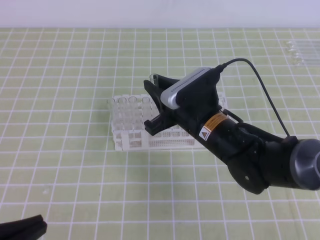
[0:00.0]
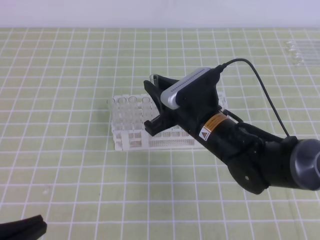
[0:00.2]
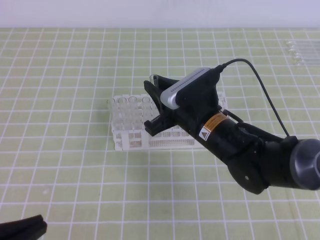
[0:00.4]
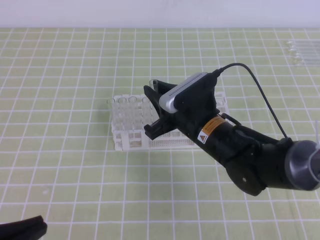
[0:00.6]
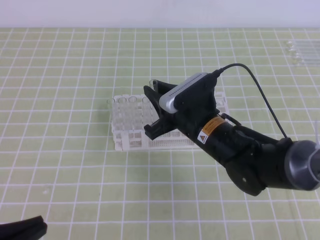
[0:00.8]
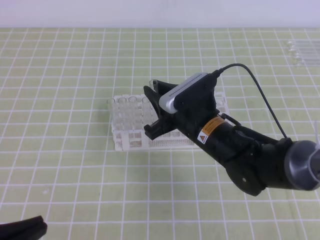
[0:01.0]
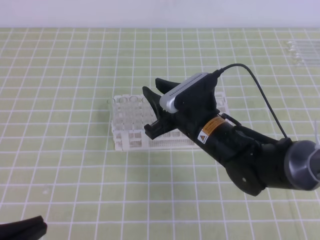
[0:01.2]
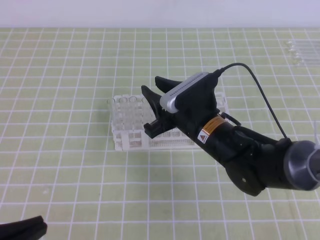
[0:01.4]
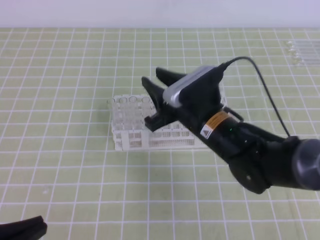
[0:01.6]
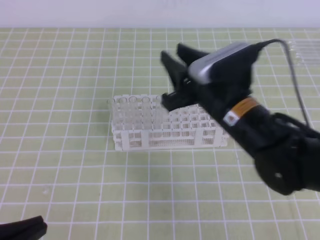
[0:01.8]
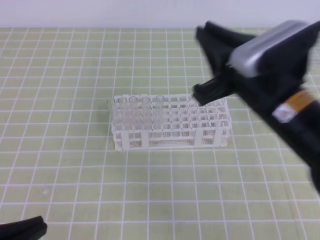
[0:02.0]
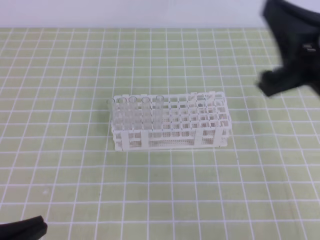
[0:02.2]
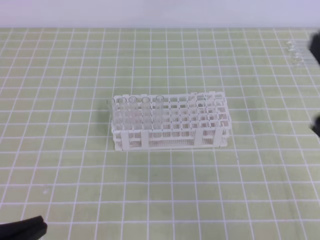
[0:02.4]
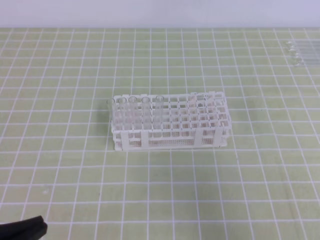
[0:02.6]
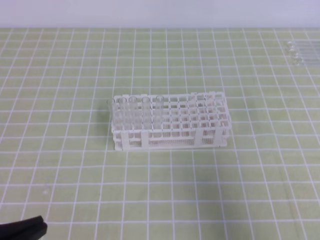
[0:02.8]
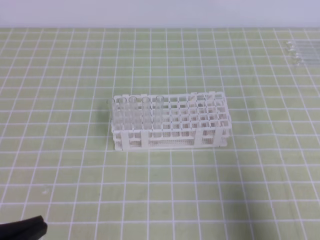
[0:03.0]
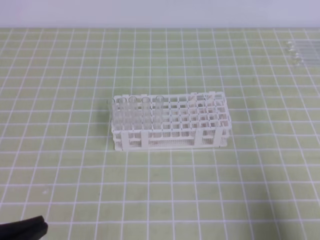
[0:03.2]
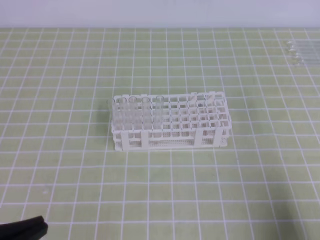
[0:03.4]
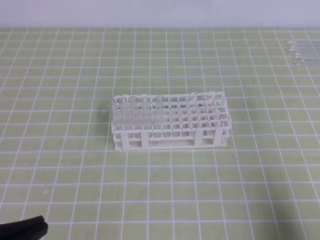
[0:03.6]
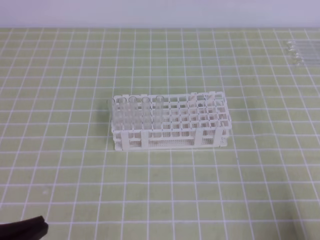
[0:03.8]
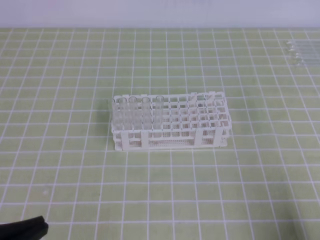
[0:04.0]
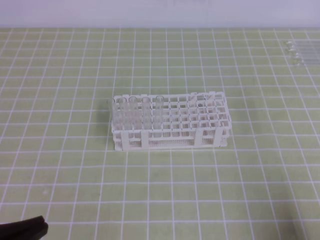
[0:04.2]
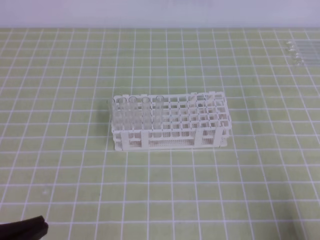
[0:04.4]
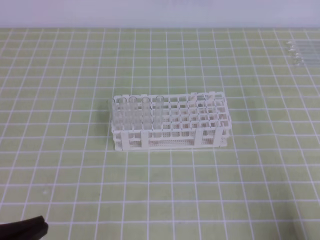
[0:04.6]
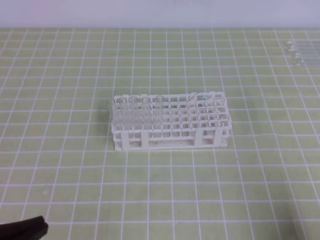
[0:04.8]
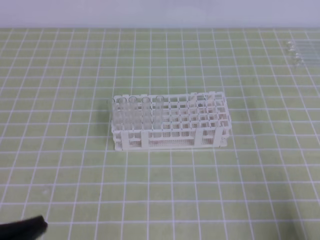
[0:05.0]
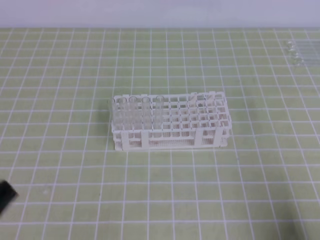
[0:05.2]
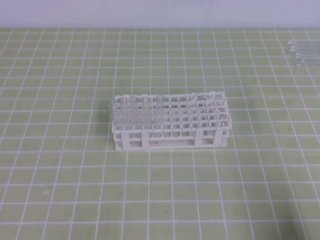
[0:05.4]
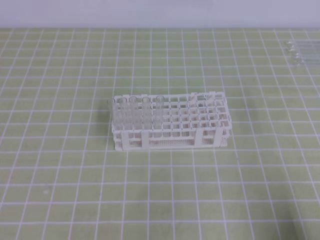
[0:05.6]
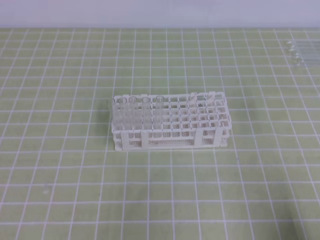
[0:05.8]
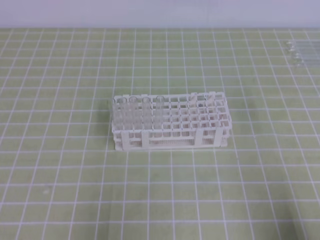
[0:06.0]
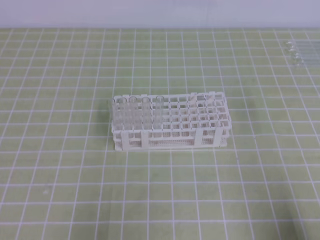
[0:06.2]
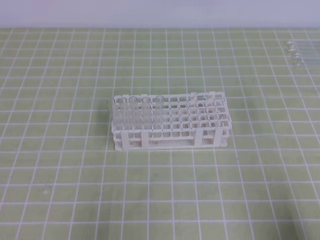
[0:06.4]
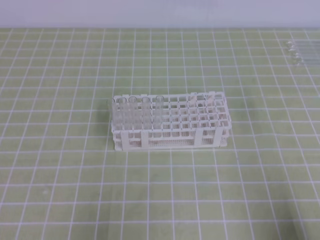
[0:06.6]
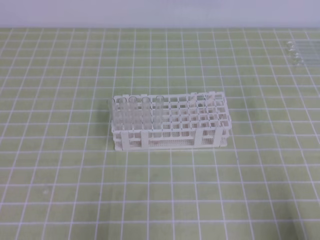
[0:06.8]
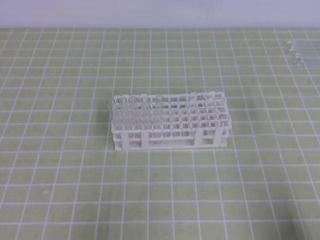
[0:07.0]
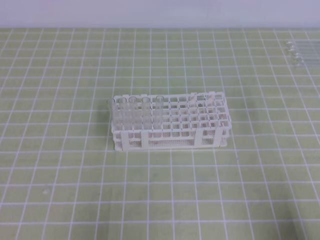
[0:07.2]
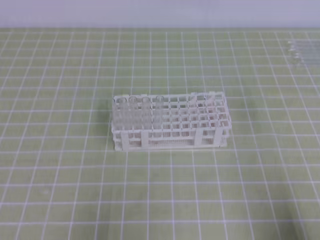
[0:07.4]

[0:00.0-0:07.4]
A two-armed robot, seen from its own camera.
0:00.0 to 0:01.4: Both grippers stay about where they are.
0:01.4 to 0:03.0: The right gripper shifts approximately 30 cm to the right and backward, and closes up.
0:03.0 to 0:04.4: The right gripper is displaced downward by roughly 10 cm.
0:04.4 to 0:06.0: The left gripper is displaced downward by roughly 10 cm.
